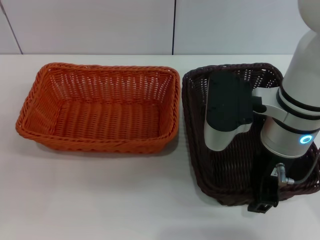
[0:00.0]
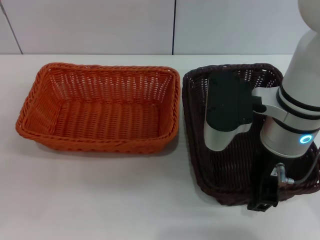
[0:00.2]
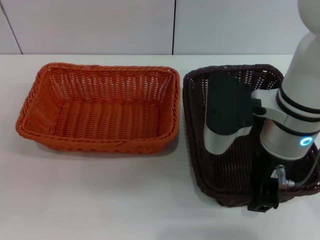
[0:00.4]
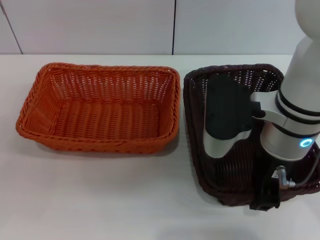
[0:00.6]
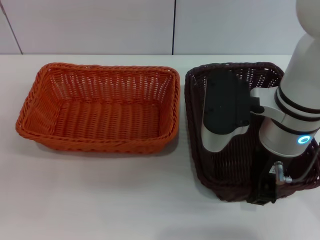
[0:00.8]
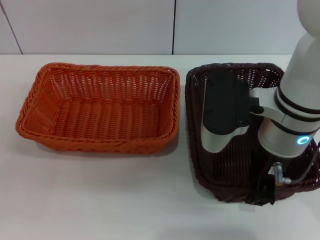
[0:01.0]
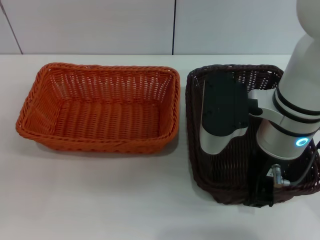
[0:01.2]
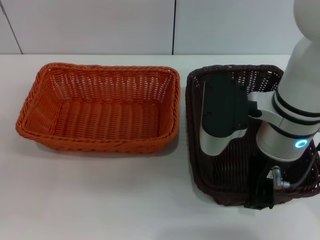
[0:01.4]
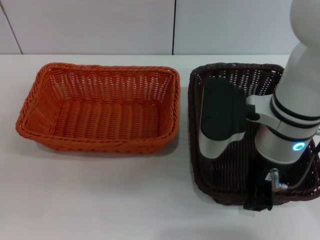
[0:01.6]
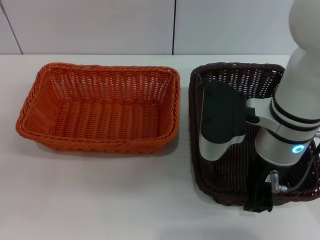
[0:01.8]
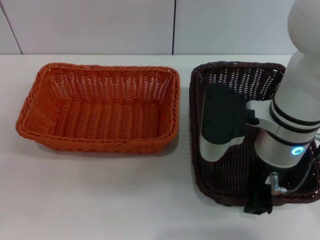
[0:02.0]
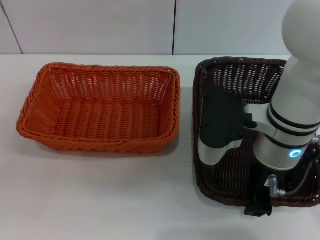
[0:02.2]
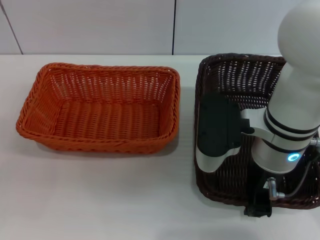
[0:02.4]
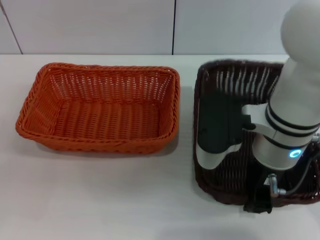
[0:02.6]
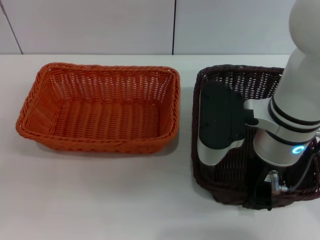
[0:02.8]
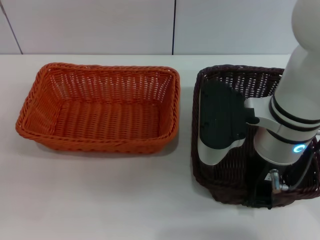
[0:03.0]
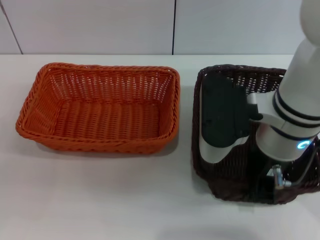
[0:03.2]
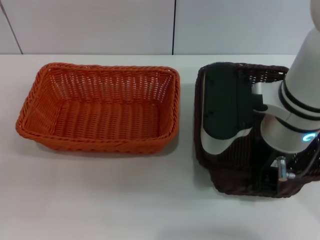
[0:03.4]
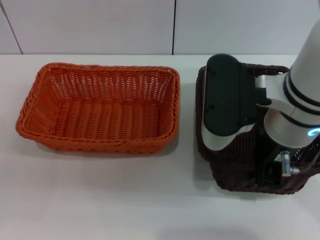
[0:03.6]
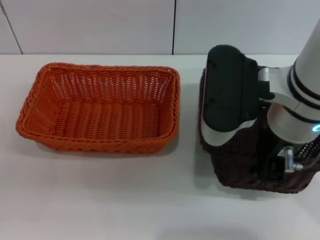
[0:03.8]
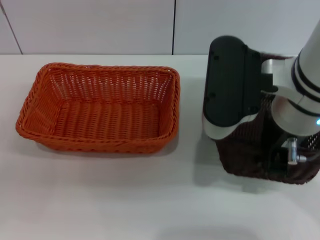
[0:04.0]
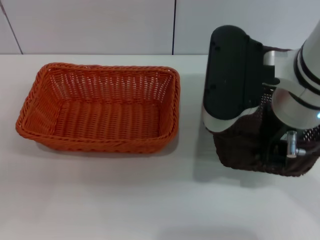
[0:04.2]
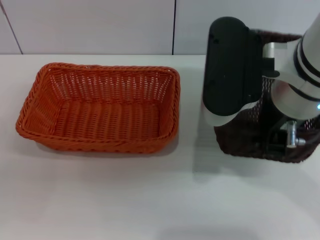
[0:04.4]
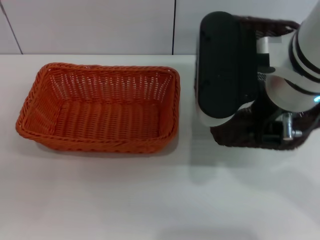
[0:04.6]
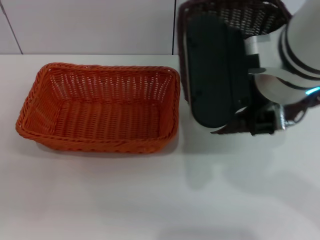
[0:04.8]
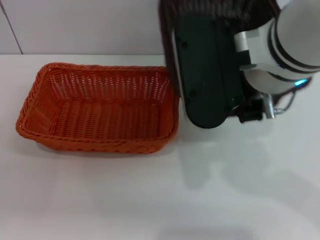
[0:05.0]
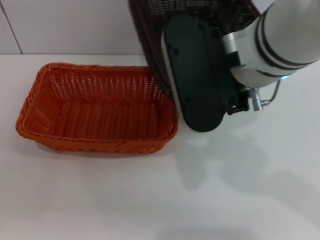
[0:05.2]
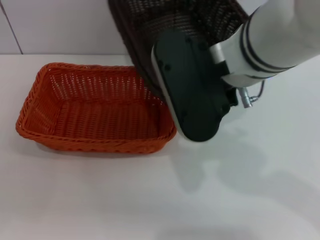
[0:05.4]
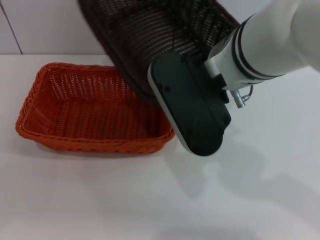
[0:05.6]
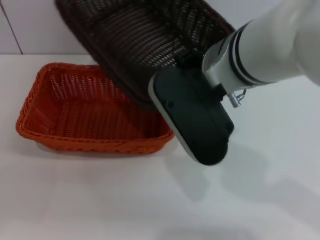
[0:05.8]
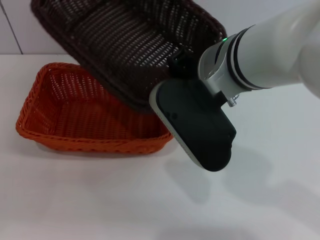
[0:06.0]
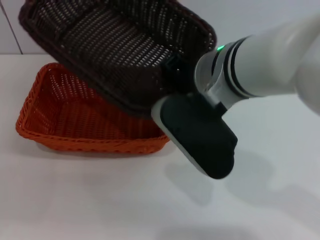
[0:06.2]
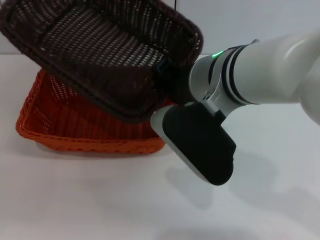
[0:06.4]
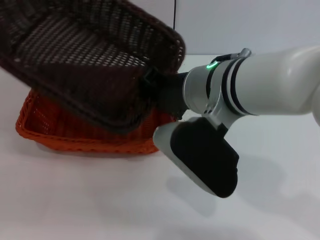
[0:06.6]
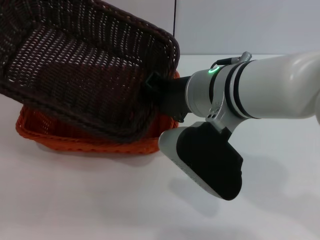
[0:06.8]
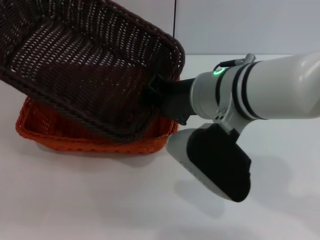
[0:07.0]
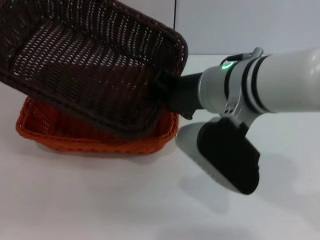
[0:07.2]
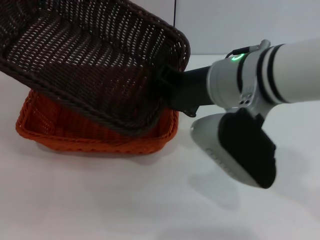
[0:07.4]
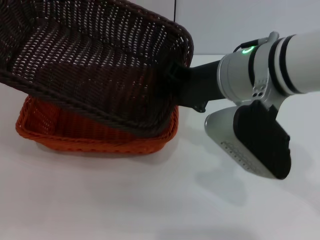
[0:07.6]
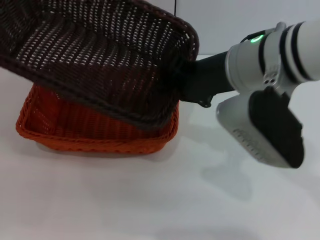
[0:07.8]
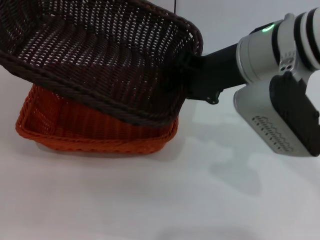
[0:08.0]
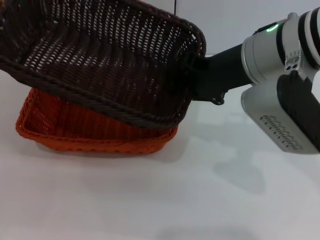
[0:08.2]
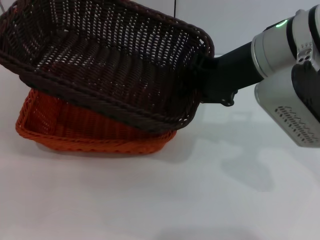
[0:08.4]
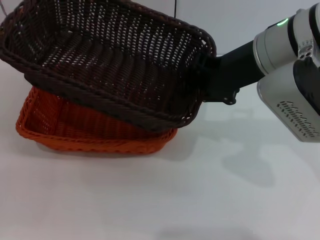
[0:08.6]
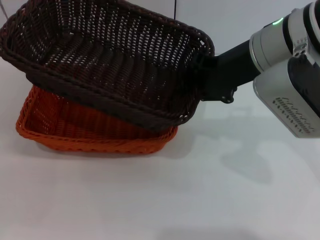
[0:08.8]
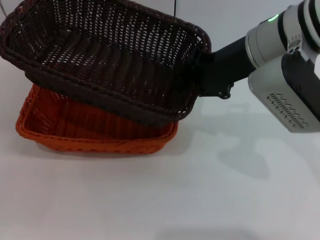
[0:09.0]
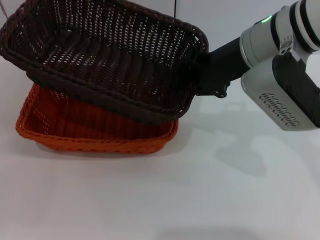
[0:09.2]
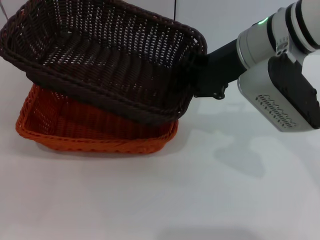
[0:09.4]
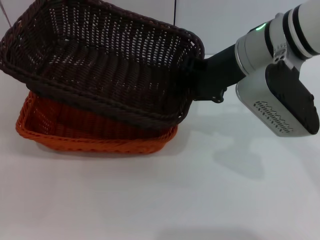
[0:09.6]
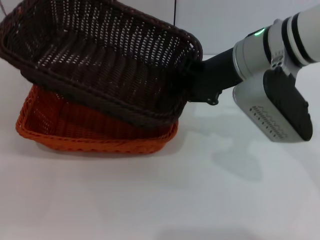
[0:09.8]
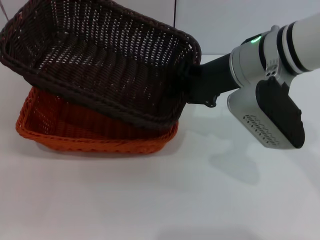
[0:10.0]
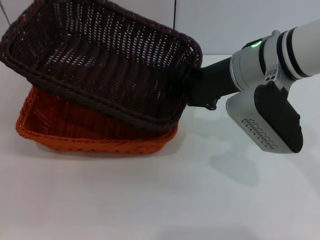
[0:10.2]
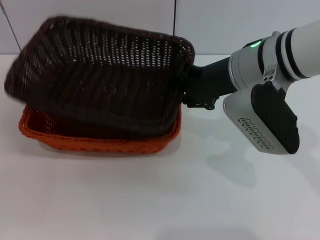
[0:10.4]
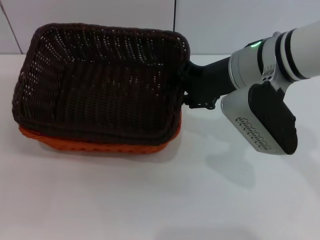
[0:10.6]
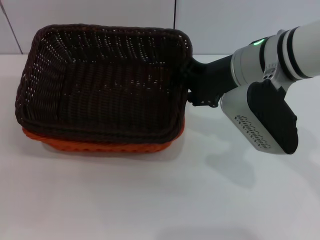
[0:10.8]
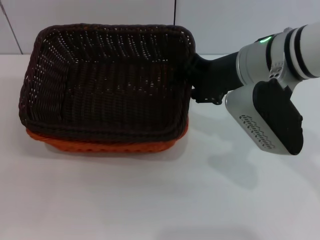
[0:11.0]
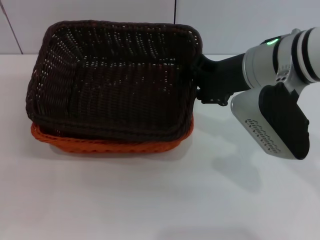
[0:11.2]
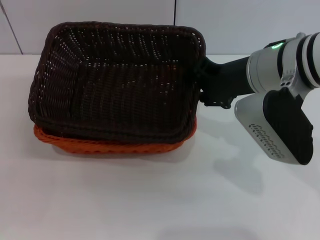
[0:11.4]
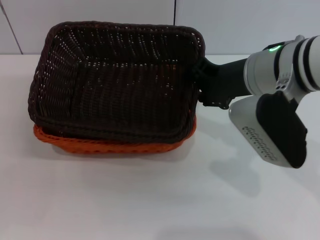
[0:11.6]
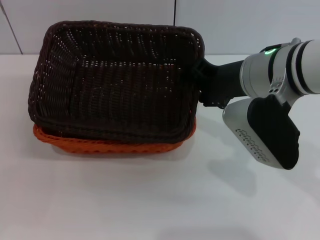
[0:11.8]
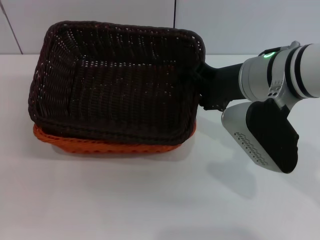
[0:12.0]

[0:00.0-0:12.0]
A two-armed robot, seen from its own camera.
Step, 0:00.0 to 0:02.2: Pick up the dark basket with the right gripper.
0:00.0 to 0:01.6: The right gripper closes up.
0:01.6 to 0:03.0: The grippers make only small movements.
0:03.0 to 0:04.4: The right gripper heads upward, covering roughly 10 cm.
0:04.4 to 0:06.0: The right gripper is displaced to the left by about 5 cm.
0:07.6 to 0:09.0: The right gripper ends up some 5 cm from where it was.
0:10.4 to 0:12.0: The right gripper opens.

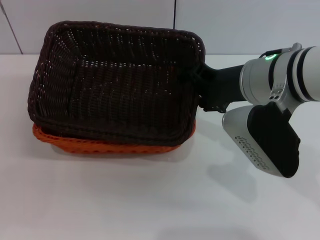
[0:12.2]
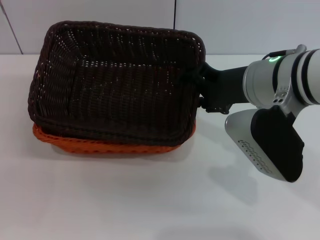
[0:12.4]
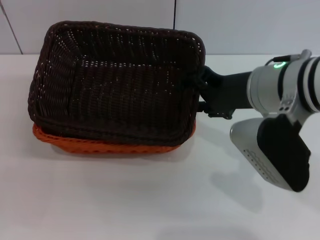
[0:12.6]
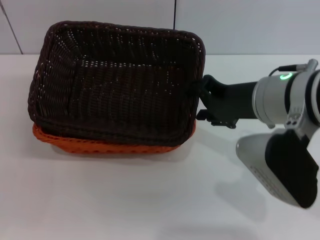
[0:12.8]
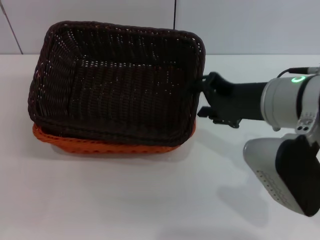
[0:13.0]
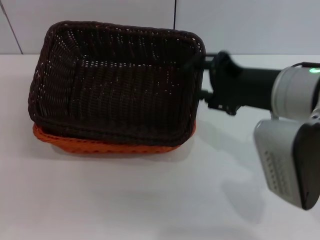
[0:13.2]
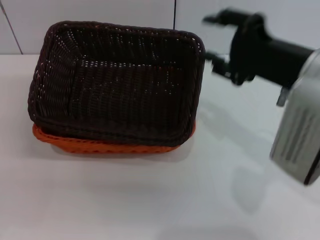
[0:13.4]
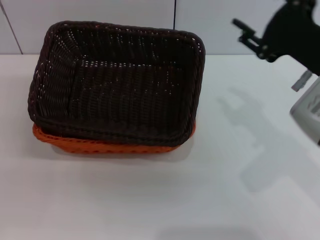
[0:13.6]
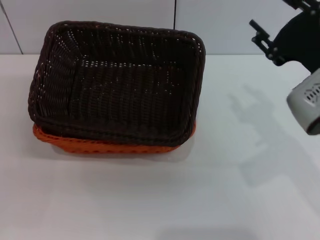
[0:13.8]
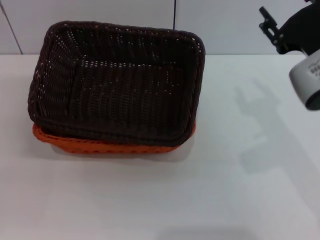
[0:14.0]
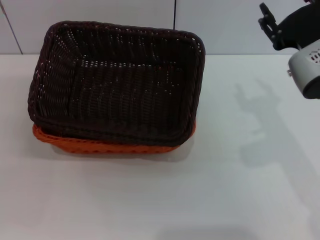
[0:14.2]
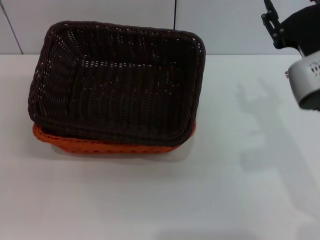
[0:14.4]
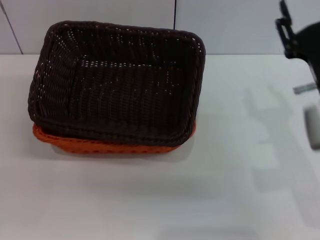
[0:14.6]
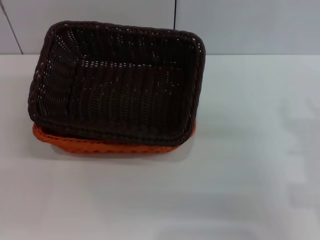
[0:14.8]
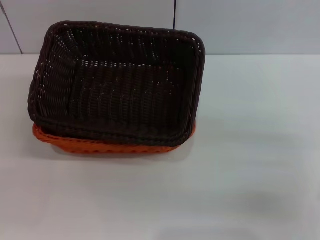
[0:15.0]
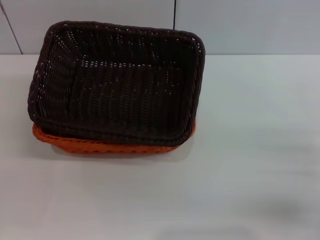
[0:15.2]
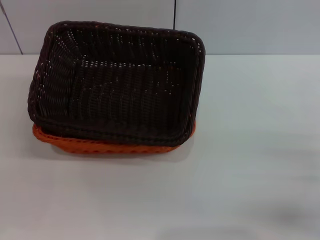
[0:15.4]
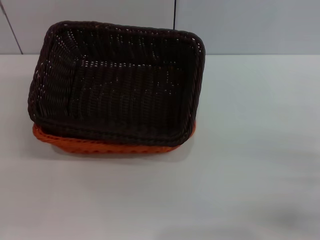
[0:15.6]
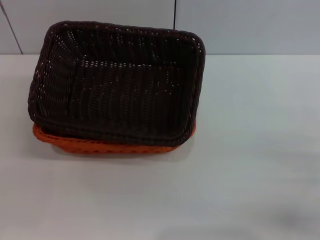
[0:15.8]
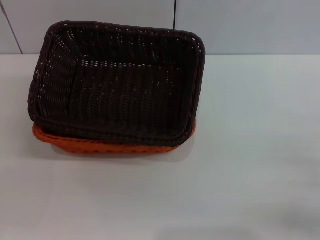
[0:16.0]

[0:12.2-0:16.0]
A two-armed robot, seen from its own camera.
0:12.2 to 0:13.4: The right gripper heads backward, covering approximately 5 cm.
0:13.4 to 0:14.8: The right gripper shifts roughly 15 cm downward and to the right.
0:14.8 to 0:16.0: The right gripper goes approximately 10 cm to the right and downward.
